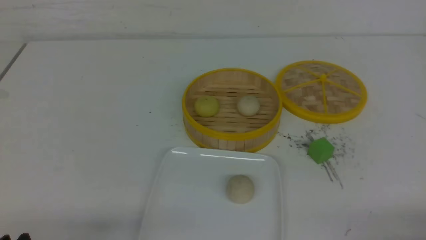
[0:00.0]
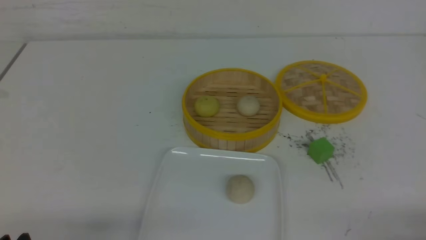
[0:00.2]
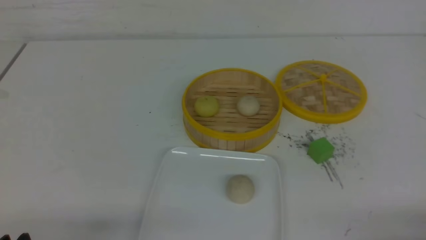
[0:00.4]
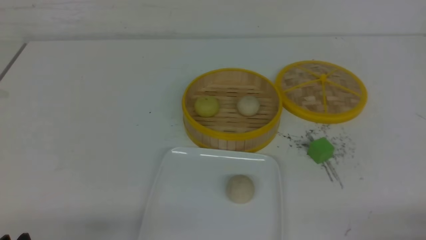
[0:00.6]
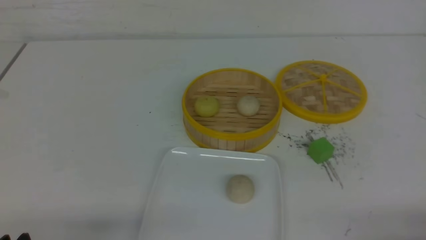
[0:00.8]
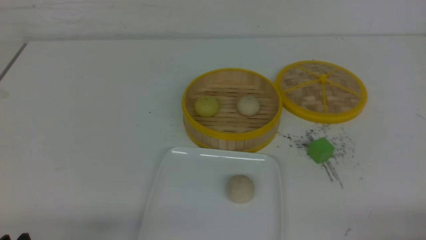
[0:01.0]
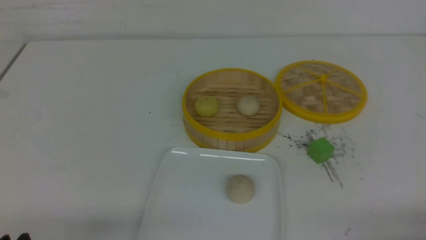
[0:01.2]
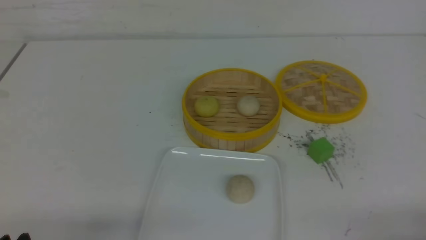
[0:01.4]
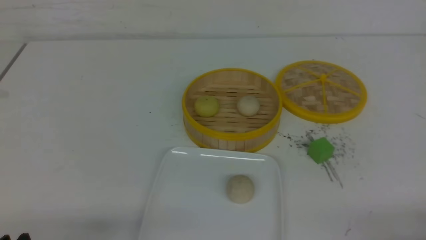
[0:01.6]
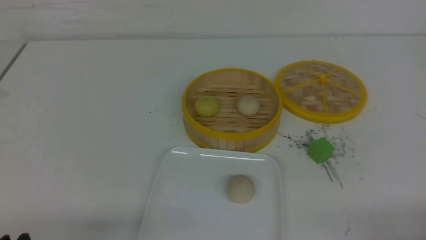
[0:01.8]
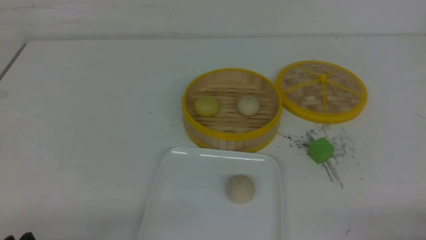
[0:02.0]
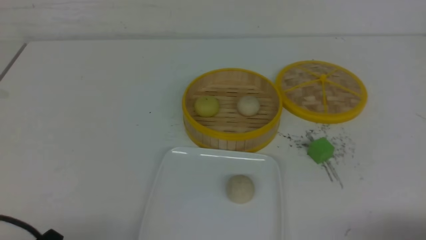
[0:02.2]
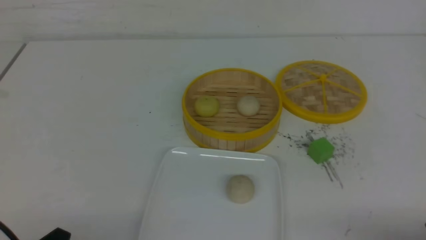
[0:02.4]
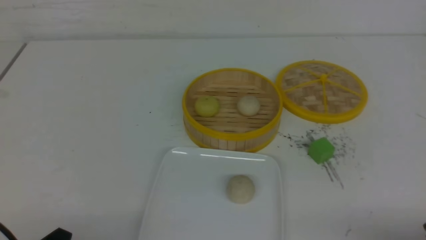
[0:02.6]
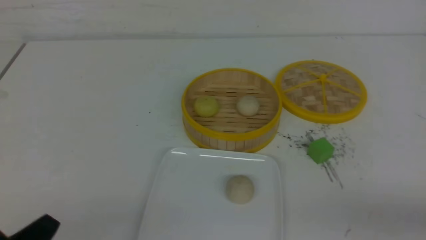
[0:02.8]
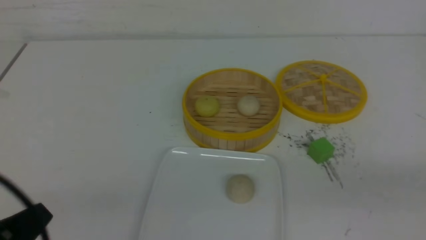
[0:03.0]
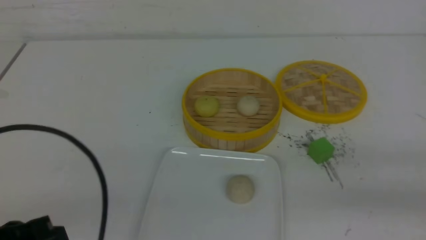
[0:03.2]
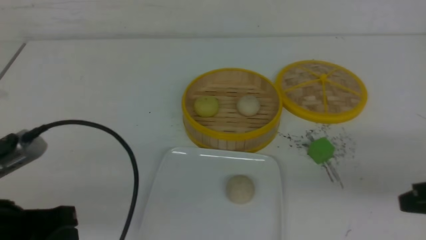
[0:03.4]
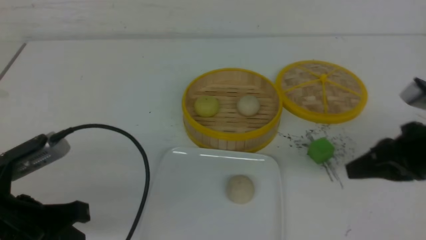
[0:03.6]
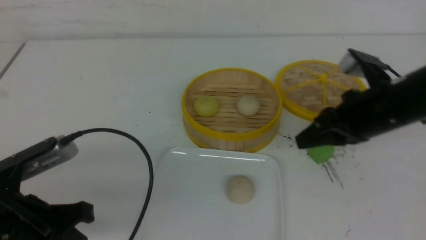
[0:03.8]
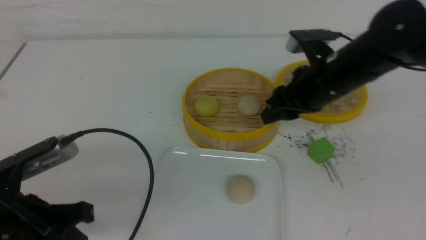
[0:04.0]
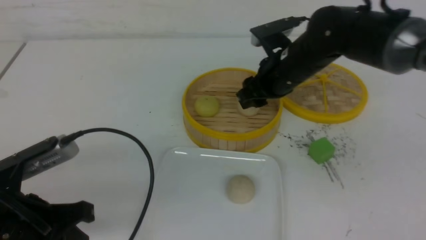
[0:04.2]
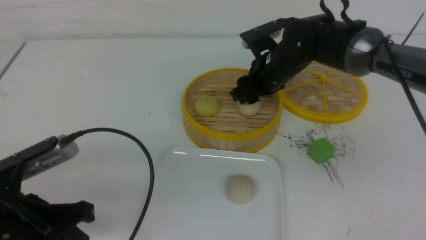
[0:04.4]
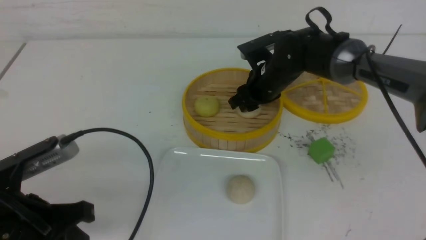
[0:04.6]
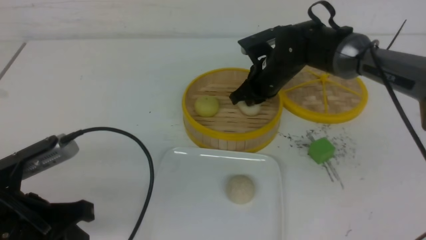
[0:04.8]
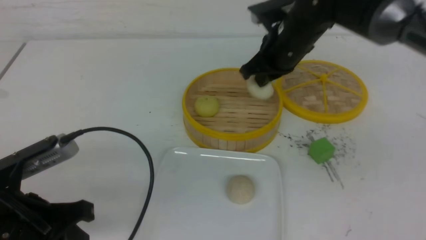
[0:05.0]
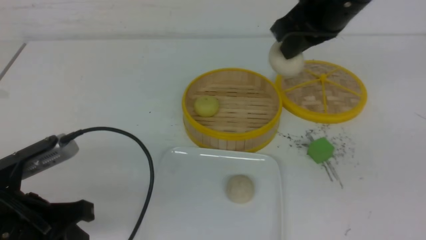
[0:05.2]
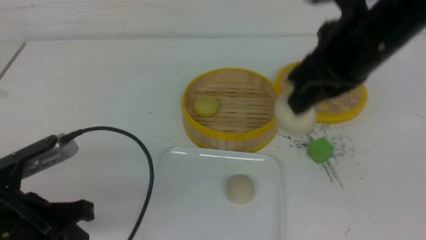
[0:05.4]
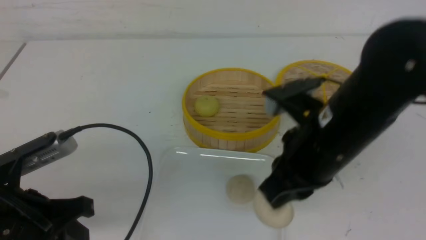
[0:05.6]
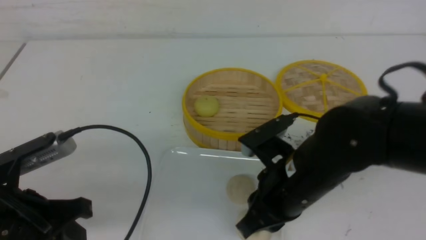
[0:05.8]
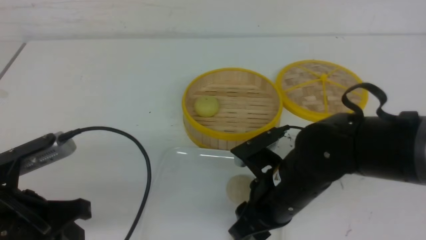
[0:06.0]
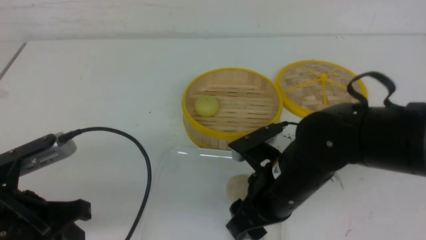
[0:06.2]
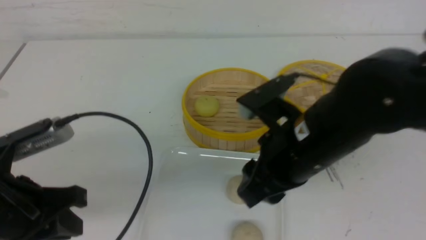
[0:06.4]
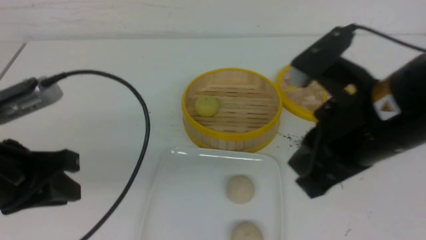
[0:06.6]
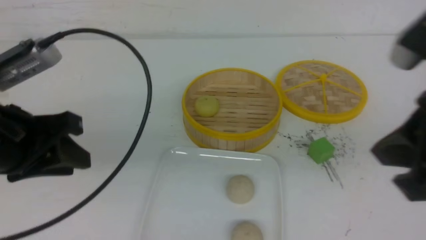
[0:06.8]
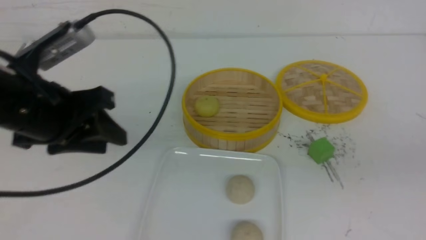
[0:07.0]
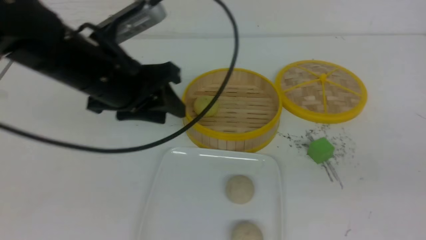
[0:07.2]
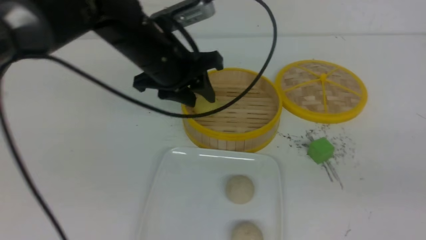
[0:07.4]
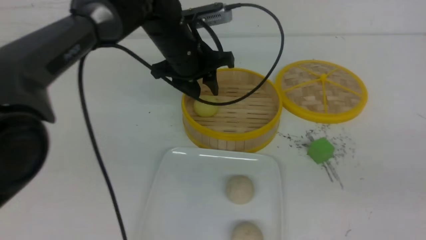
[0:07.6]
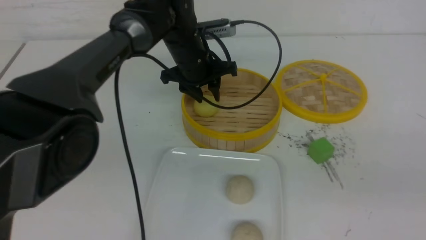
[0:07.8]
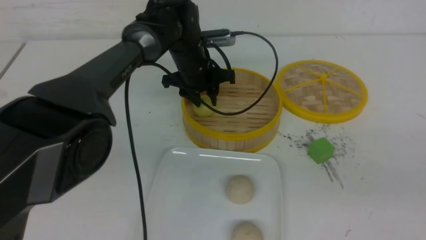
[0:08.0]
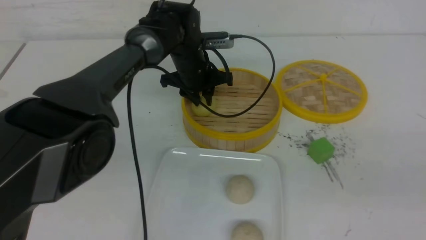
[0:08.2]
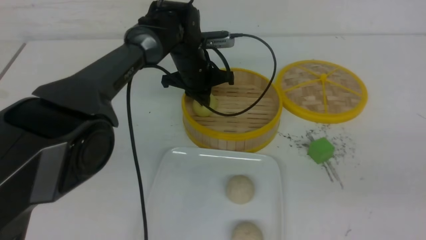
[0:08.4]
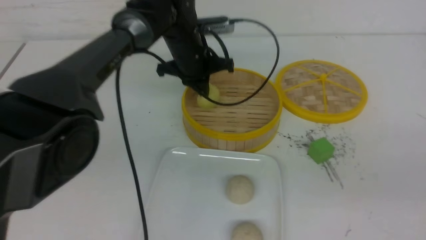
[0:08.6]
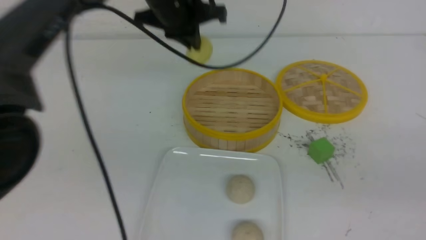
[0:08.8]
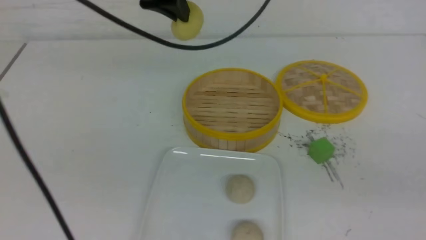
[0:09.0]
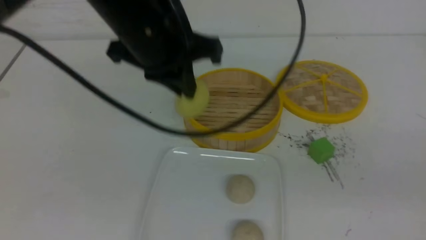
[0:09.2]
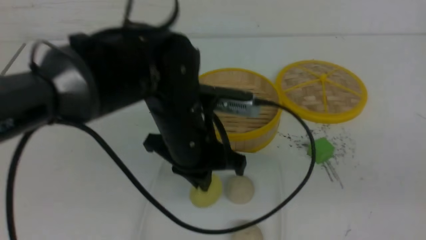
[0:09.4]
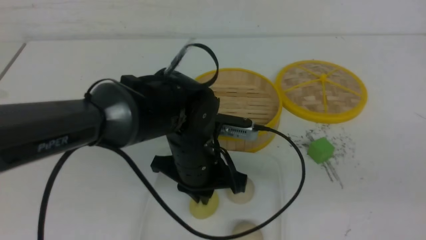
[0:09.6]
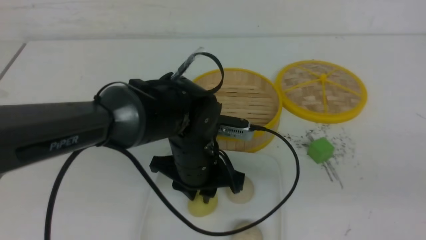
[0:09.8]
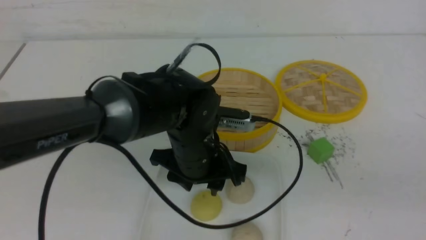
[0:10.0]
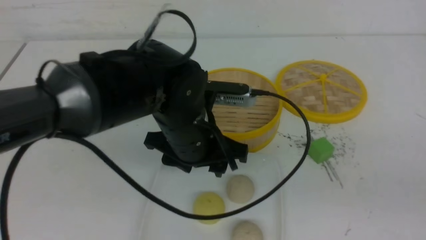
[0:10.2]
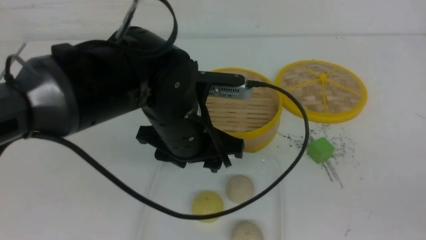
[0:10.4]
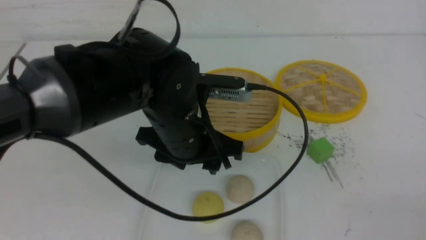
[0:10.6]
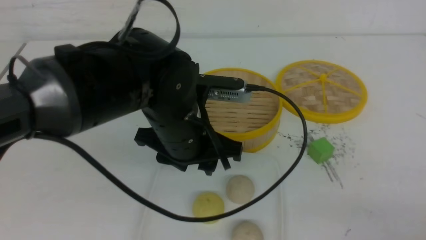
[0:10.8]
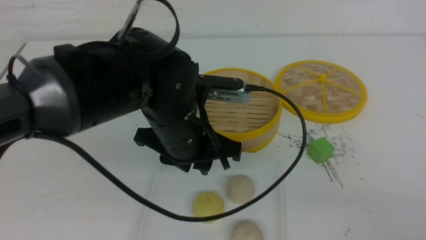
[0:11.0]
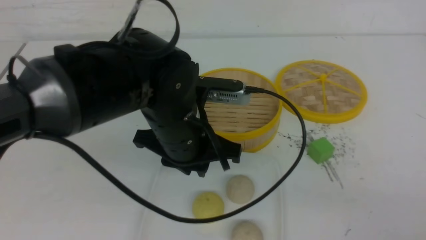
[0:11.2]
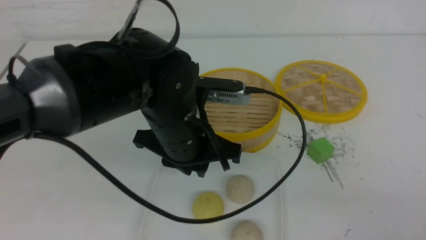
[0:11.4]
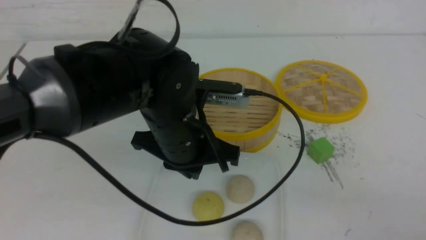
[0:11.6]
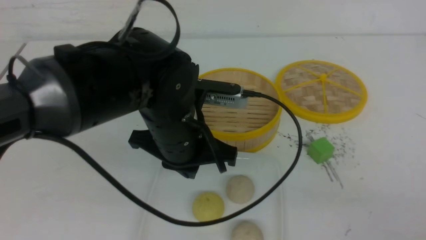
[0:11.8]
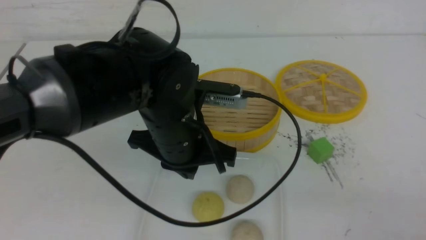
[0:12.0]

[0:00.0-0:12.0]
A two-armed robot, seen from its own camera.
Step, 0:00.0 to 0:04.8: use the right arm to grab the steamed stuffed bun that is closest to it.
Step, 0:05.0 to 0:06.2: use the right arm to put the steamed stuffed bun into the plate.
Step, 0:06.4 to 0:08.4: use the left arm to grab the steamed stuffed bun that is closest to it.
Step, 0:08.6 to 0:10.0: use the left arm to put the steamed stuffed bun into the plate.
0:01.6 to 0:03.0: The two grippers go approximately 10 cm upward. The left gripper closes. Meanwhile the right gripper closes.
0:03.0 to 0:04.4: The left gripper shifts some 10 cm forward. Meanwhile the right gripper moves forward and to the left, some 40 cm, and opens.
0:04.4 to 0:06.0: The right gripper shifts roughly 20 cm backward, and closes, then opens again.
0:06.0 to 0:07.6: The left gripper heads forward and to the right, covering some 30 cm, and opens its fingers, while the right gripper heads to the right, backward and upward, covering some 30 cm, and closes its fingers.
0:07.6 to 0:09.0: The left gripper is displaced upward and backward by some 15 cm, and closes.
0:09.0 to 0:10.4: The right gripper goes approximately 5 cm backward. The left gripper travels downward and backward by some 15 cm, and opens its fingers.
0:10.4 to 0:12.0: The left gripper closes, while the right gripper shifts some 5 cm downward.

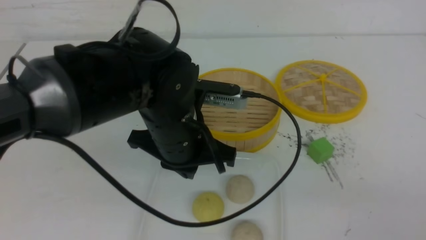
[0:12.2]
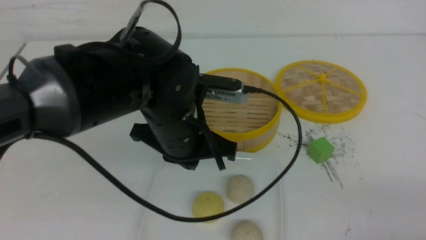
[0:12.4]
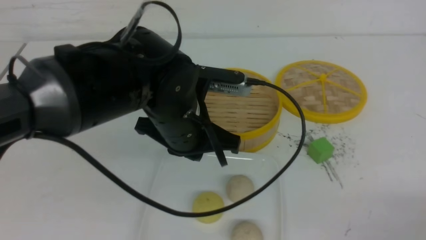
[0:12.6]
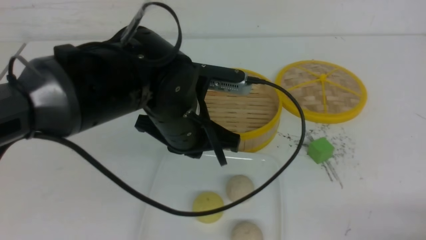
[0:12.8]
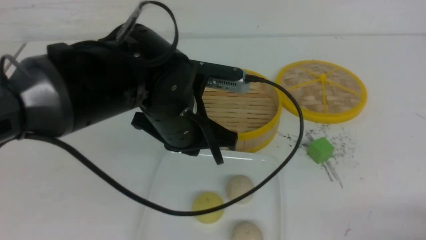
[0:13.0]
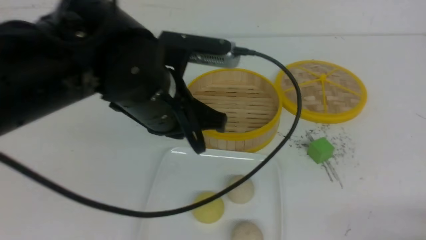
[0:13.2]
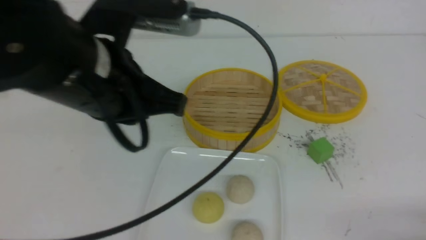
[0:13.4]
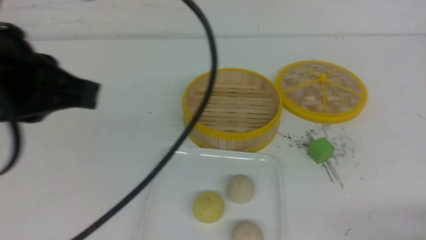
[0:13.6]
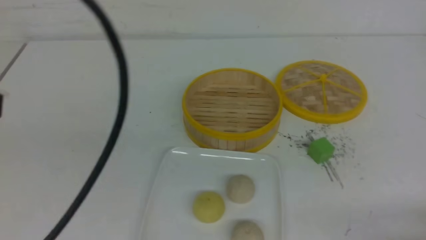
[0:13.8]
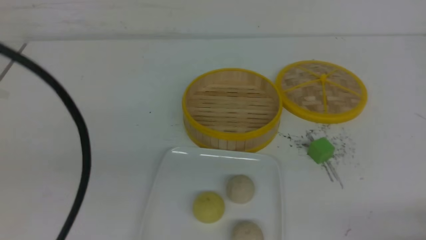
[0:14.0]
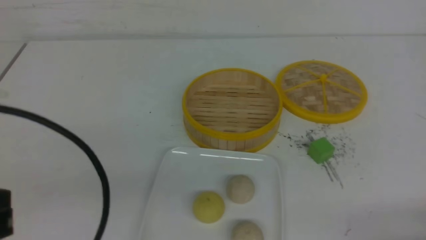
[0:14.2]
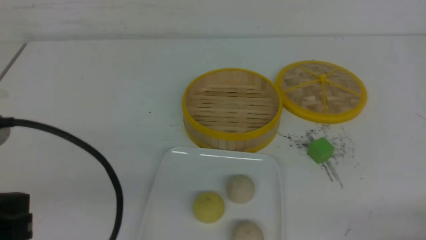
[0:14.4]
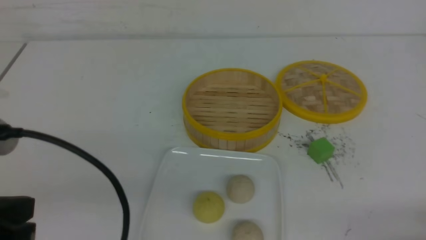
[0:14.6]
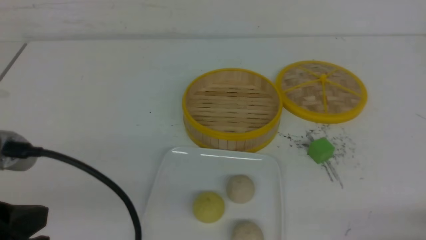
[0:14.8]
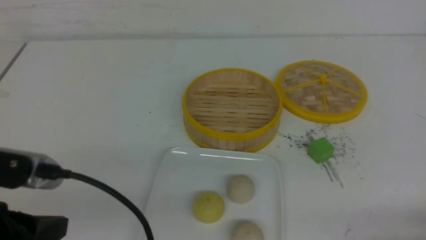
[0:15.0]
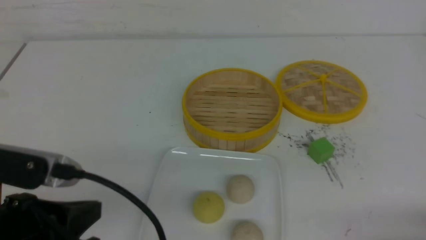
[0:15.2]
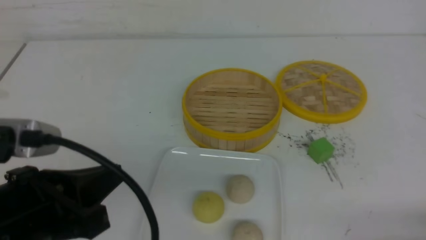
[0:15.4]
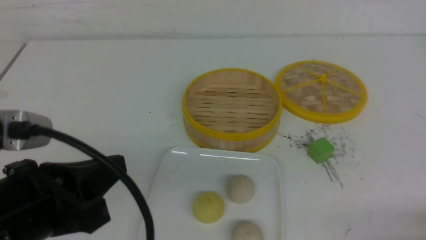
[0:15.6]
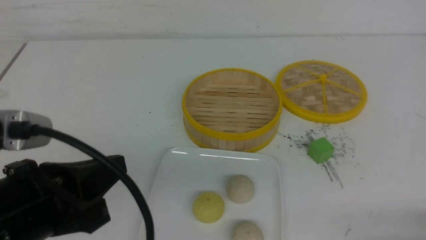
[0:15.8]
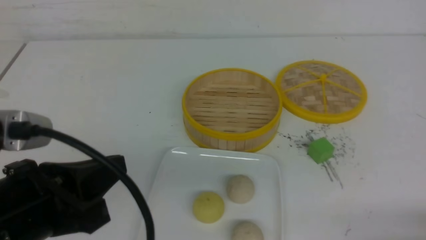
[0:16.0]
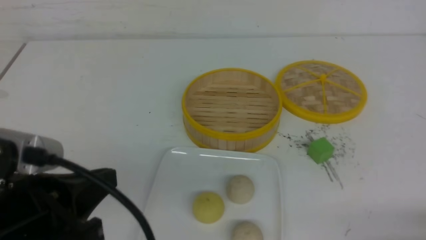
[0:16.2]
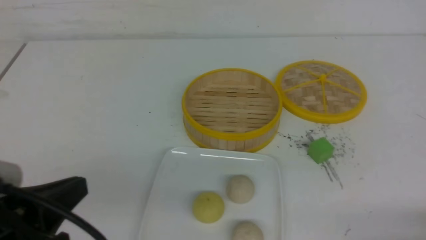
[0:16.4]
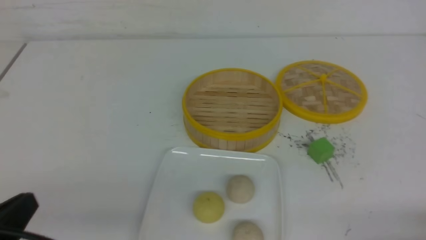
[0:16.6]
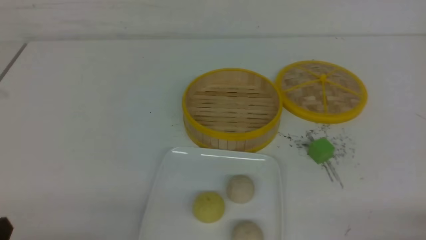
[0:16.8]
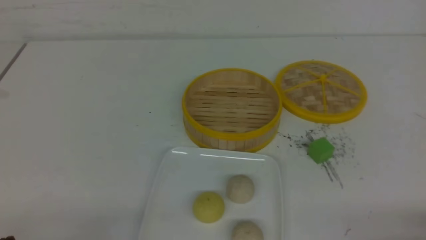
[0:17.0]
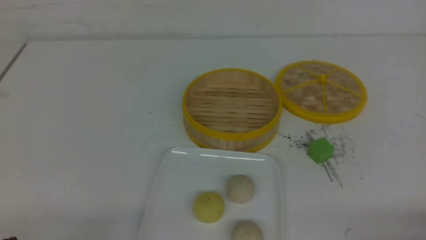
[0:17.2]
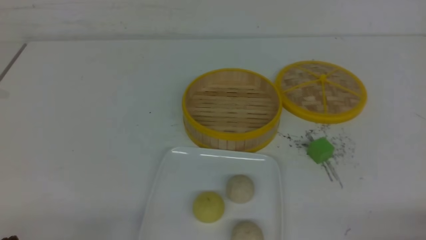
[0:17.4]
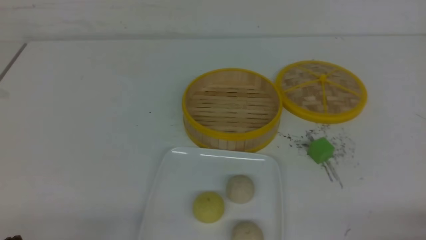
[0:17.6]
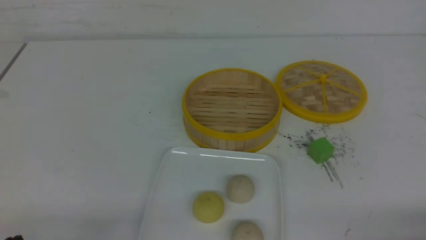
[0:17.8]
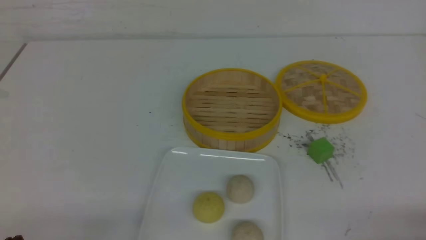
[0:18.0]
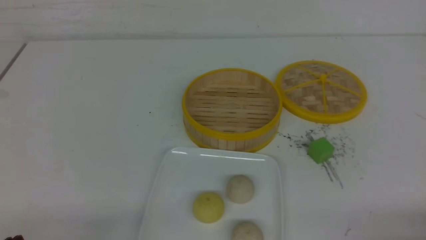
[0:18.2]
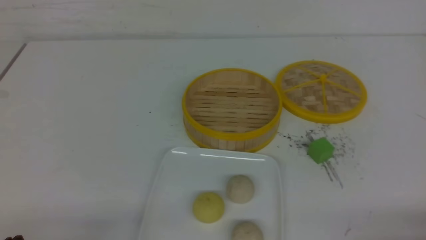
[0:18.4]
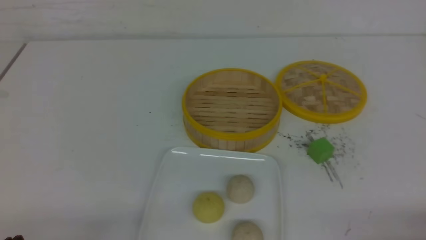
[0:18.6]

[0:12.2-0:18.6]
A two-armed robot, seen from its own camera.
0:12.2 to 0:13.8: The left gripper travels to the left, upward and backward by about 25 cm. The right gripper moves downward, approximately 10 cm.
0:13.8 to 0:15.4: The left gripper moves downward, about 10 cm.
0:15.4 to 0:17.0: The left gripper travels downward and to the left by about 15 cm.
0:17.0 to 0:18.6: Neither gripper changes place.
